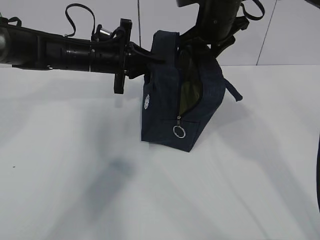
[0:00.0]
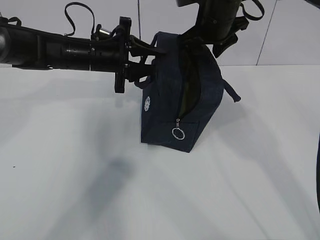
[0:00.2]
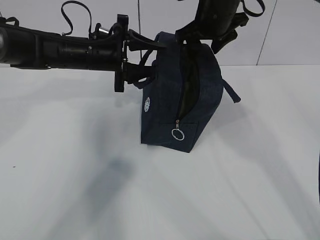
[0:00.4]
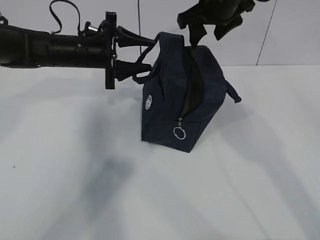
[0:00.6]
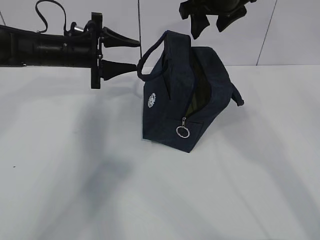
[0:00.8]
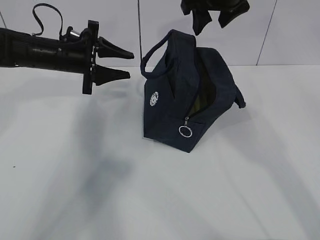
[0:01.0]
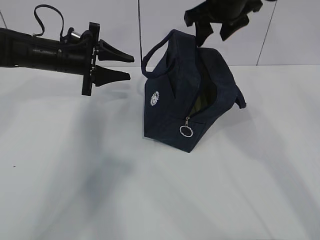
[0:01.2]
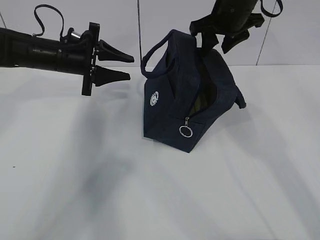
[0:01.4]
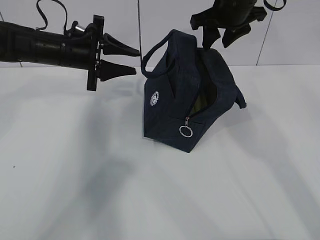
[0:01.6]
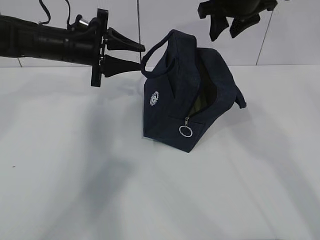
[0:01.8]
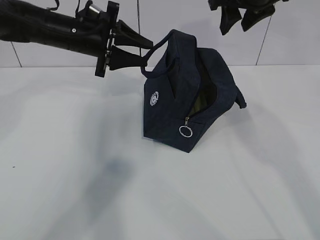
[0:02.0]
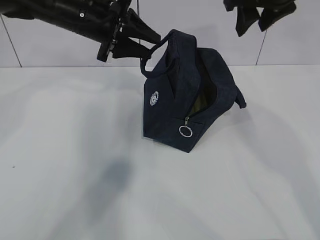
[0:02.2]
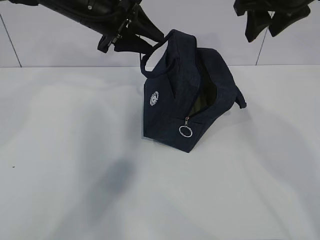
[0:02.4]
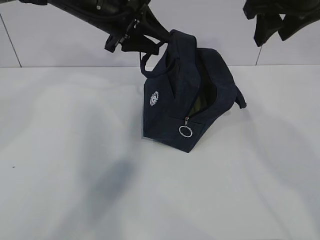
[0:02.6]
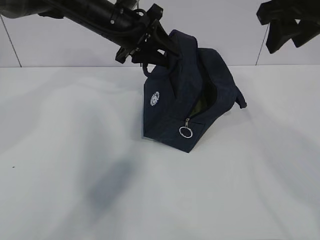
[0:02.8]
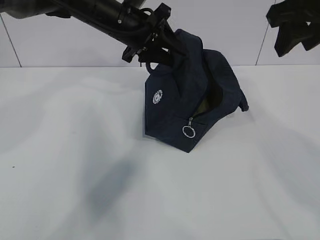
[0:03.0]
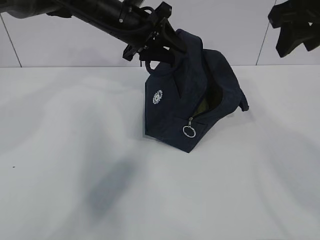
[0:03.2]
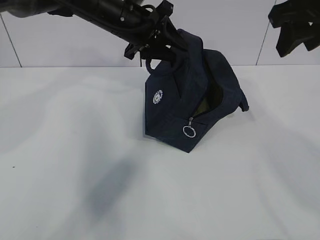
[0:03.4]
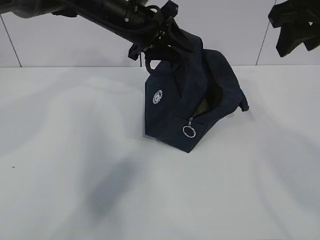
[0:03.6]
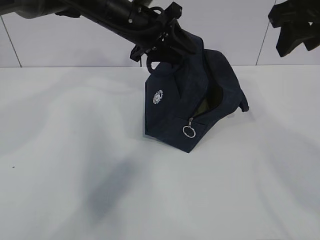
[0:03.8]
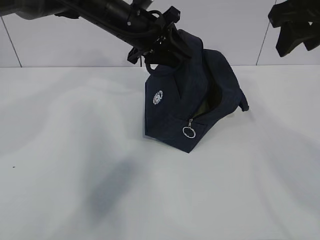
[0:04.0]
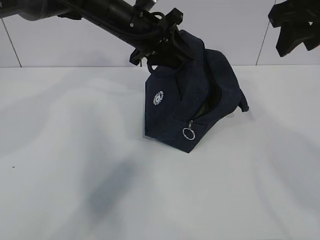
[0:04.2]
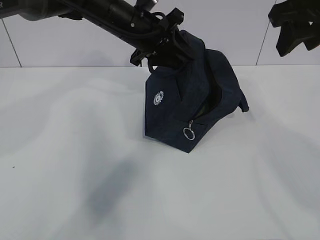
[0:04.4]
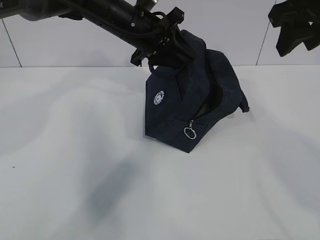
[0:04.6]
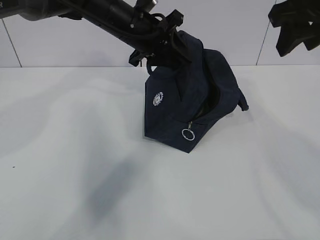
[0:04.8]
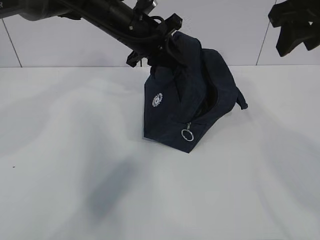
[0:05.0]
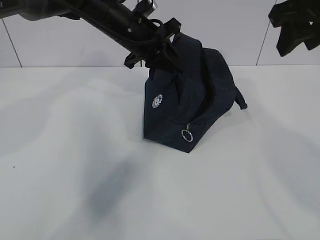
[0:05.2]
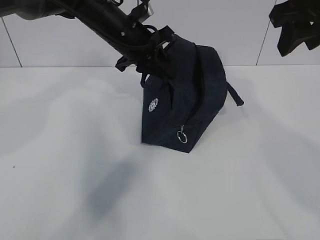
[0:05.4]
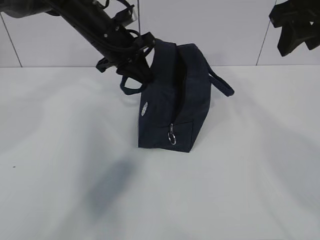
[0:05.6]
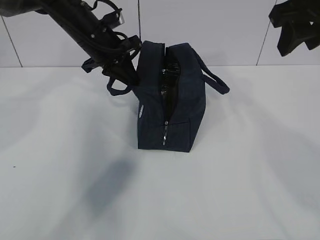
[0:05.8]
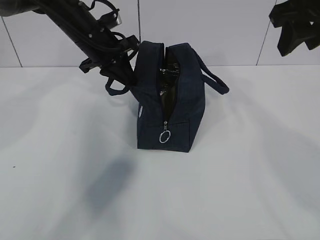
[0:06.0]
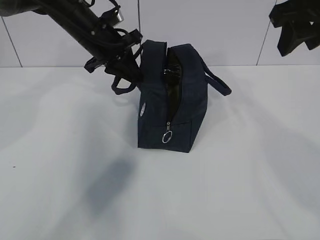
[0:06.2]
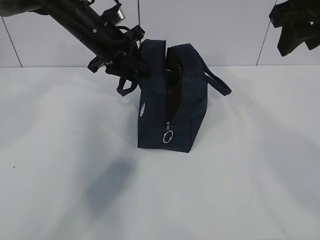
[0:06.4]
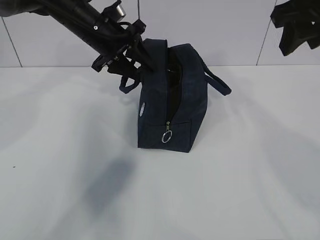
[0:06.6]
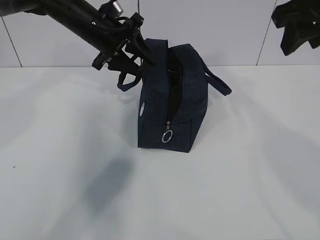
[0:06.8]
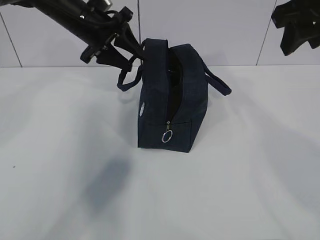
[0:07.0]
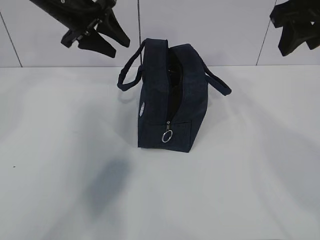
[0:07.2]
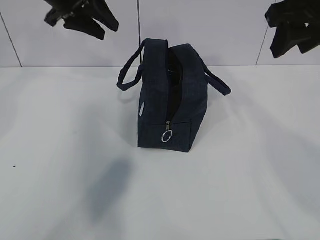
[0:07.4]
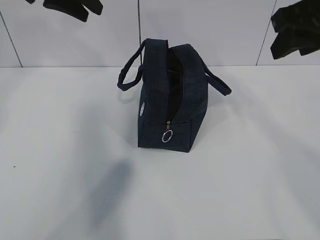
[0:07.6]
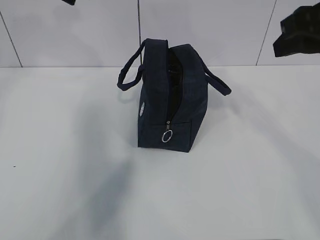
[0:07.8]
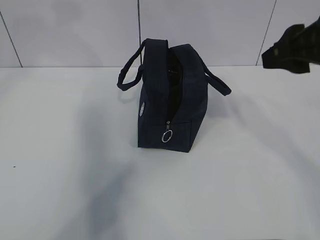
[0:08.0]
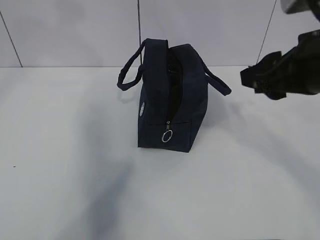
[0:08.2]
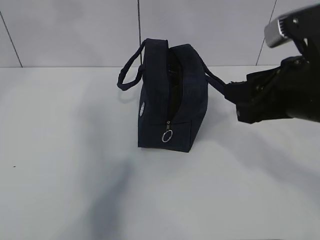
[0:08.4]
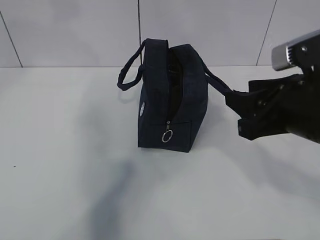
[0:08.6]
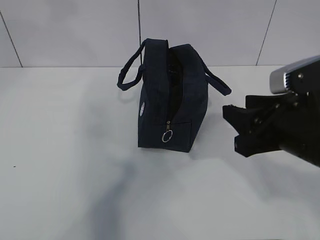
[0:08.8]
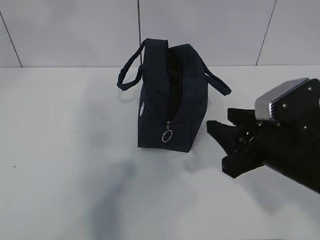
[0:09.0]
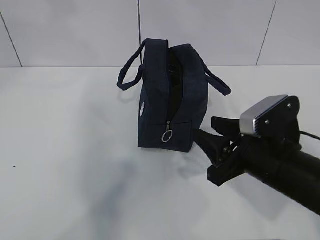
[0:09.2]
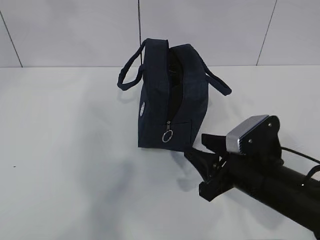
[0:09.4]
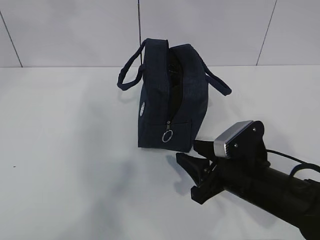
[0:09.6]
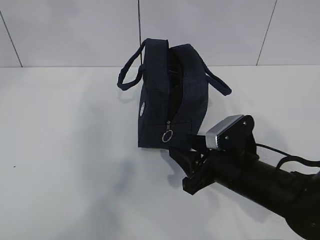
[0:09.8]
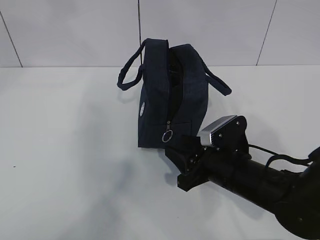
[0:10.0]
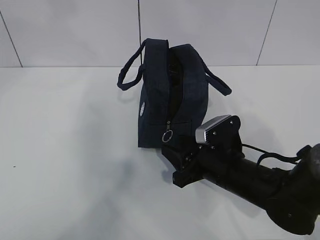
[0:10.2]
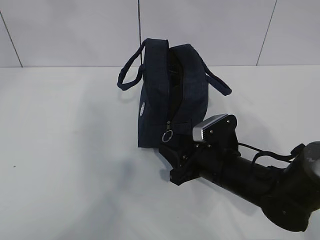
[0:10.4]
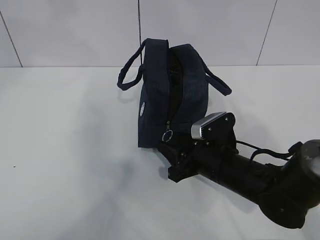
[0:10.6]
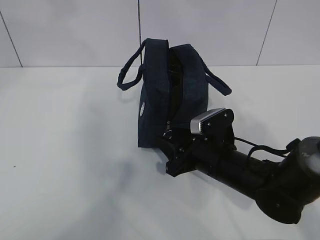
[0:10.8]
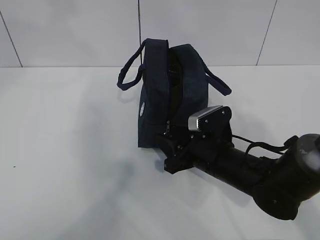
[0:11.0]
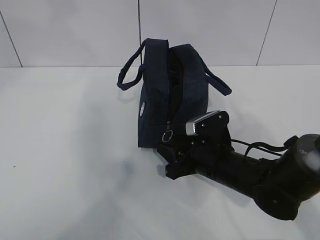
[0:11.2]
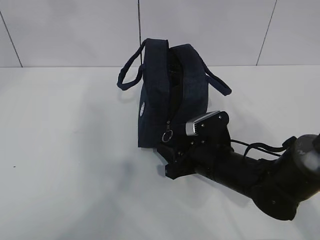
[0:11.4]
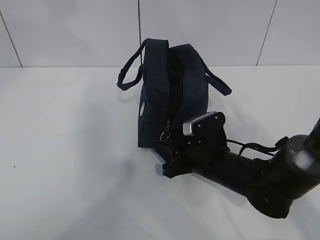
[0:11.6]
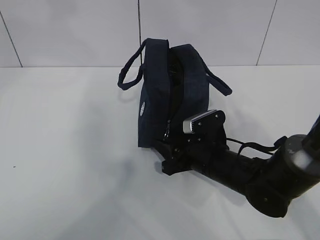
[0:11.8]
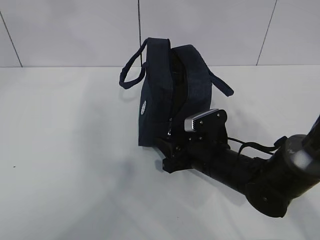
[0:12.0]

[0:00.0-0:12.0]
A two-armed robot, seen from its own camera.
Step, 0:00.0 to 0:11.6: Grab the lunch bag with your left hand.
0:00.0 to 0:01.6: The left gripper goes approximately 5 cm to the left, and opens.
0:01.6 to 0:03.0: The right gripper shifts roughly 15 cm backward, upward and to the right. Meanwhile the left gripper travels to the right and upward by about 10 cm.
0:03.0 to 0:04.4: The grippers make only small movements.
0:04.4 to 0:06.0: The left gripper shifts some 10 cm to the left, and closes up.
0:06.0 to 0:07.6: The left gripper travels upward and to the left by about 15 cm, and opens.
0:07.6 to 0:09.0: The right gripper shifts some 20 cm downward and backward; the left gripper shifts about 15 cm upward and backward.
0:09.0 to 0:10.4: The right gripper goes roughly 15 cm downward, forward and to the left.
0:10.4 to 0:12.0: The grippers stay close to where they were, moving slightly.

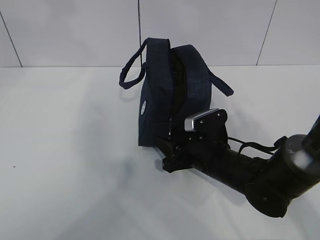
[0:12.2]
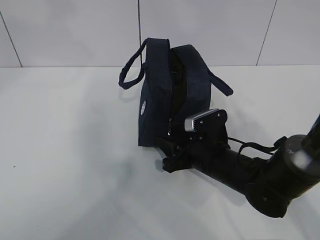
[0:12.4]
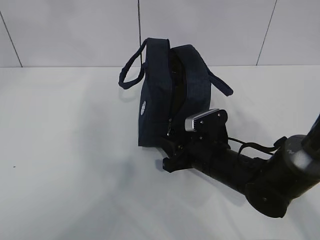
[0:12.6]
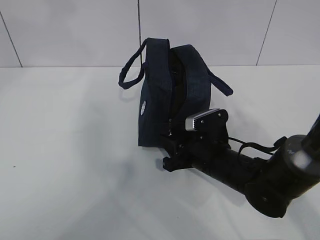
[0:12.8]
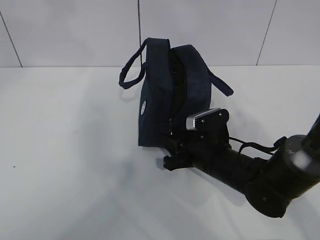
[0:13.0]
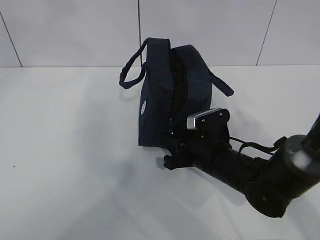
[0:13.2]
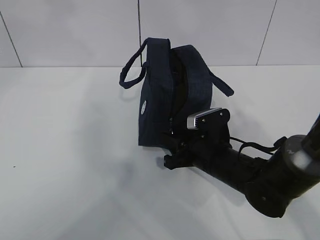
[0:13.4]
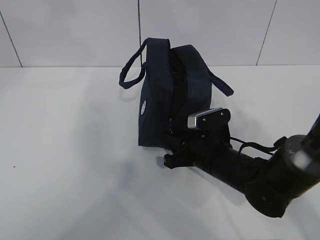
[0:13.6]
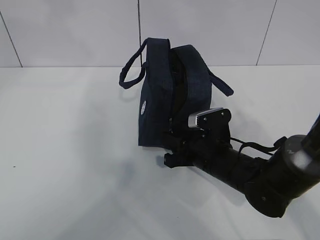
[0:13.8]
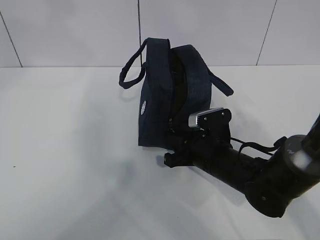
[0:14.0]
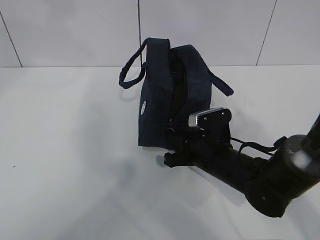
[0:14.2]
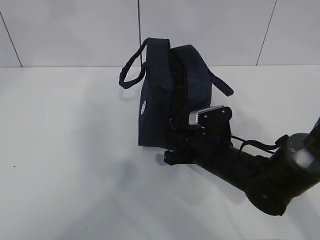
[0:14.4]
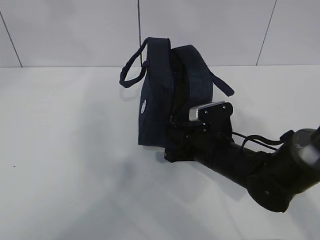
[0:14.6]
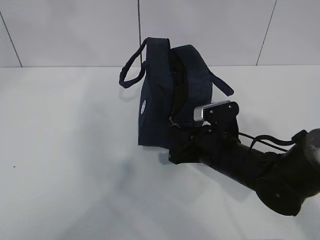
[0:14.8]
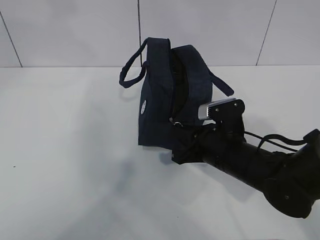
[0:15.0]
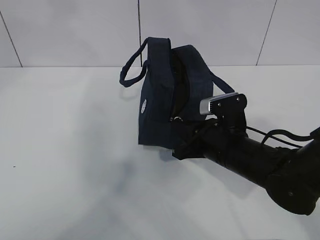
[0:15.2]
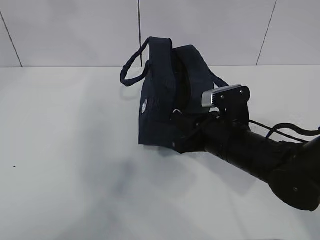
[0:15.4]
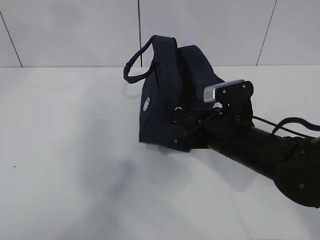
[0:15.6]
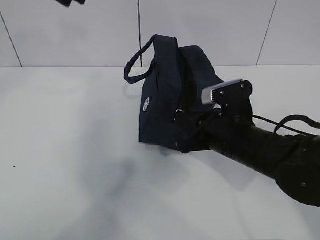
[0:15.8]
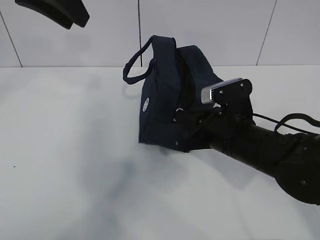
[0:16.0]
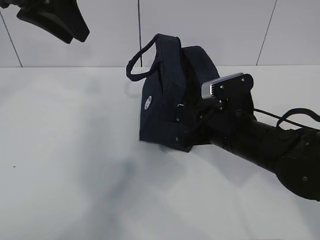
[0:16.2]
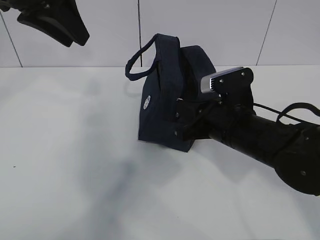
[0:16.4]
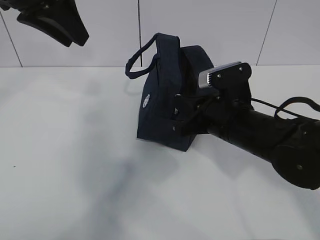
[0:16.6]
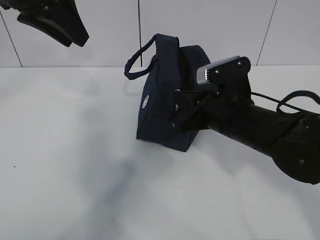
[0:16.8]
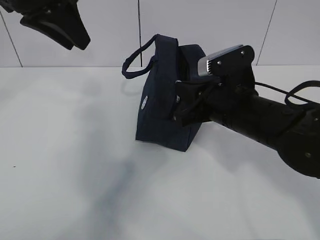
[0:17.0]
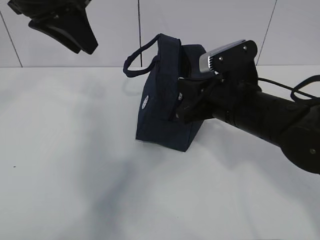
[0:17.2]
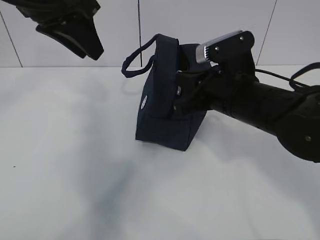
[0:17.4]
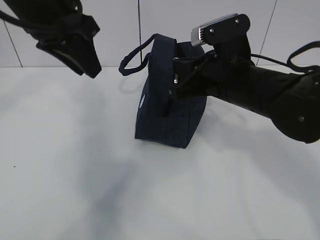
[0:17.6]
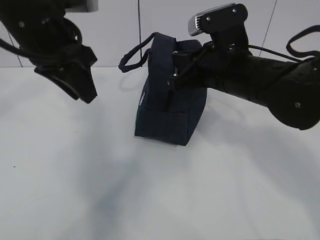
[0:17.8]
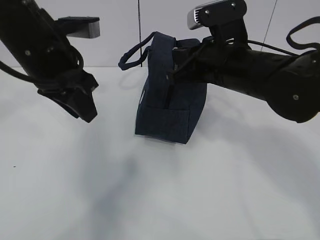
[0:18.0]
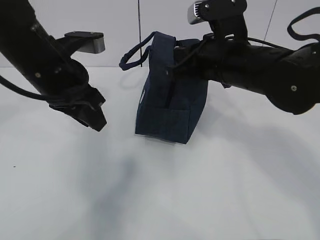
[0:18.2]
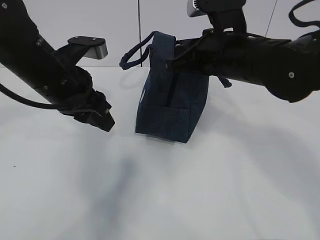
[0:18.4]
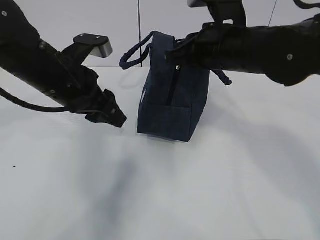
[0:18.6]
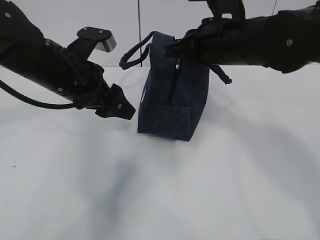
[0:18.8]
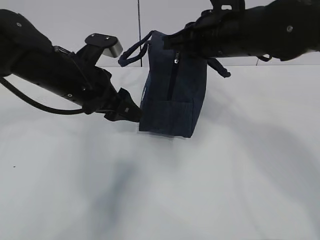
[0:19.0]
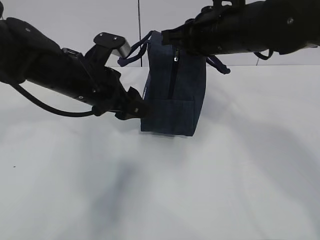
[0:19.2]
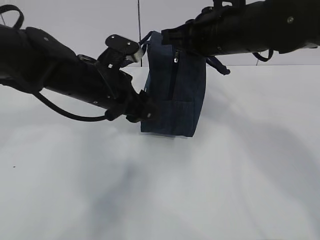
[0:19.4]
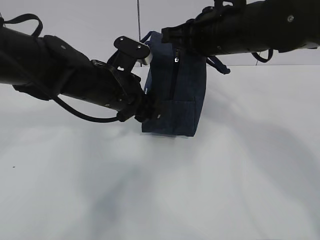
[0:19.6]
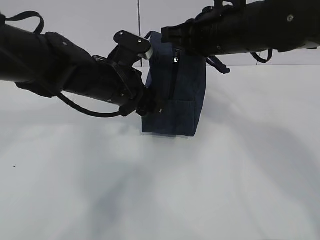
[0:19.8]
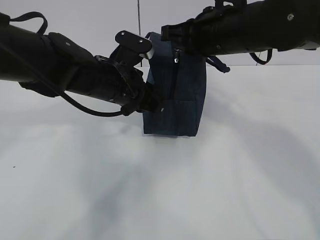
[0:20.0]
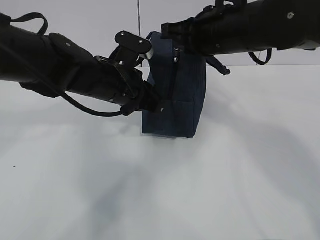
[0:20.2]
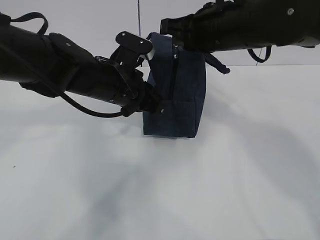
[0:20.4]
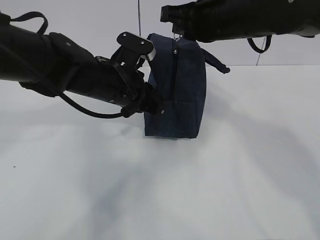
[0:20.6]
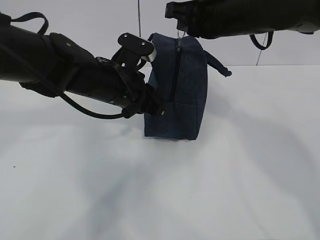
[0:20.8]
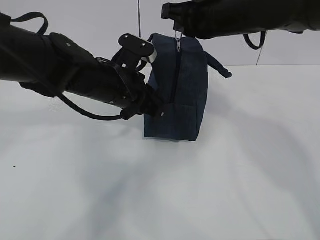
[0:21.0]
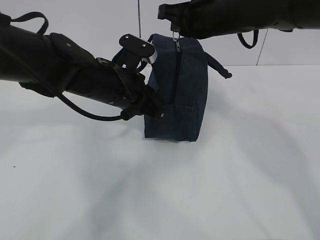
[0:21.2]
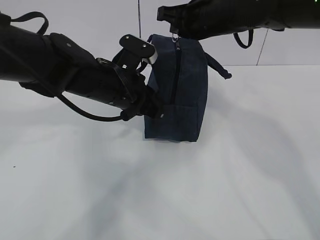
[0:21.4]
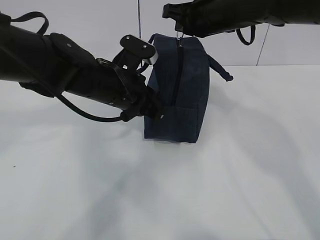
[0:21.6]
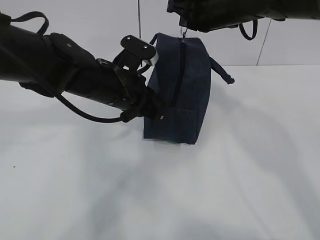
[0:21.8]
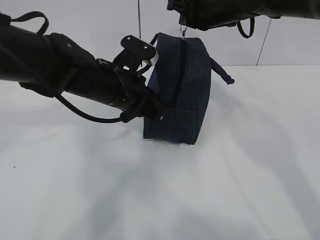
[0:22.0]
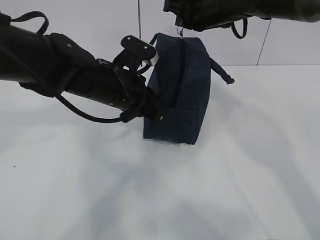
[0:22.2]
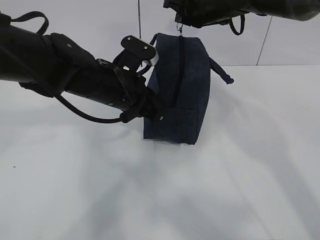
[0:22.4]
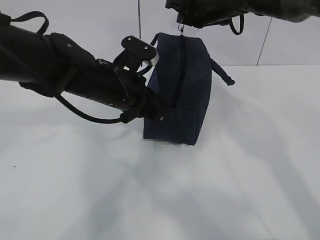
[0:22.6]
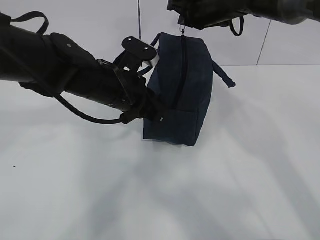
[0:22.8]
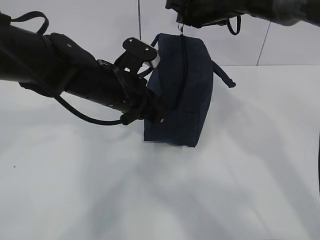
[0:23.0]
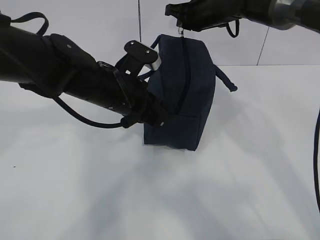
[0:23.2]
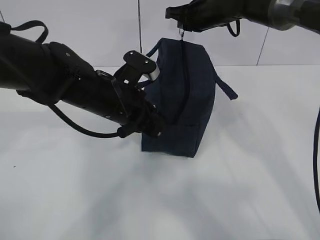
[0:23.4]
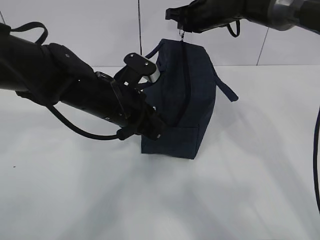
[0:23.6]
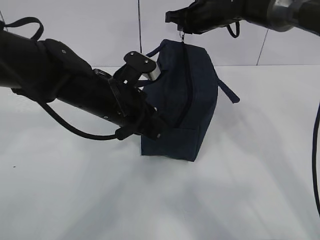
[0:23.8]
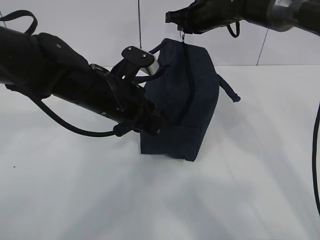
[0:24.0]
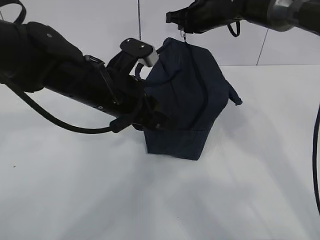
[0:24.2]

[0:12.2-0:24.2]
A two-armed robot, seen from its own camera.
Step, 0:12.2 to 0:19.4: Pull the zipper with your right hand.
0:12.2 to 0:13.8: The right gripper closes up.
0:13.8 to 0:15.2: The right gripper changes place by some 5 cm.
0:15.2 to 0:16.6: The left gripper moves downward, some 10 cm. Meanwhile the right gripper shifts by roughly 5 cm.
0:16.6 to 0:18.2: The right gripper moves upward, approximately 10 cm; the left gripper is displaced downward by about 10 cm.
0:18.2 to 0:19.8: The left gripper moves to the right and downward, approximately 10 cm, and opens.
0:19.8 to 0:21.2: The left gripper closes its fingers.
0:21.2 to 0:22.6: The right gripper is displaced forward by approximately 10 cm.
0:22.6 to 0:24.2: The left gripper opens up.
